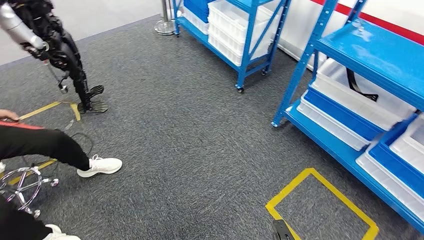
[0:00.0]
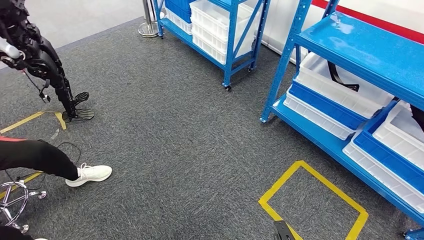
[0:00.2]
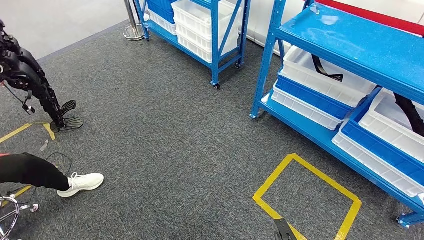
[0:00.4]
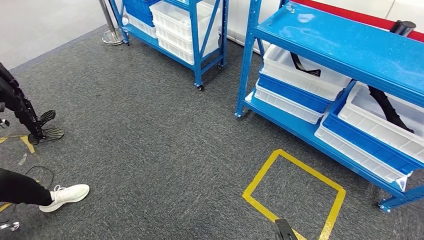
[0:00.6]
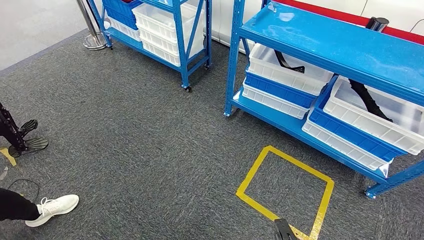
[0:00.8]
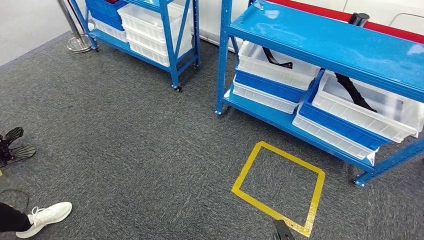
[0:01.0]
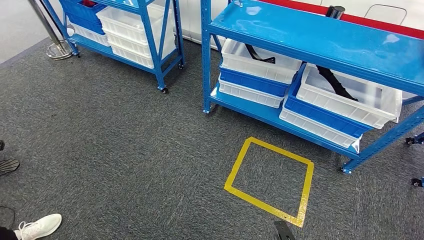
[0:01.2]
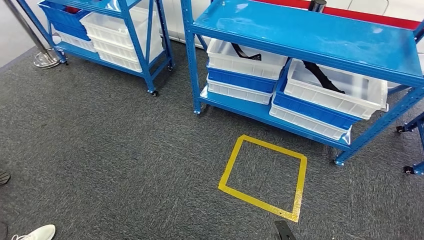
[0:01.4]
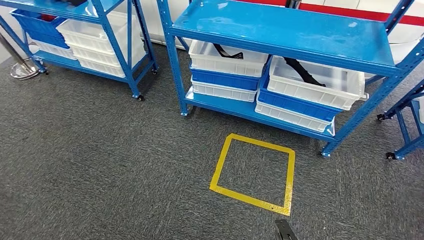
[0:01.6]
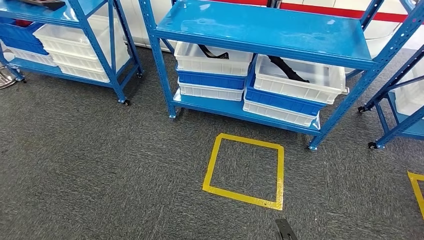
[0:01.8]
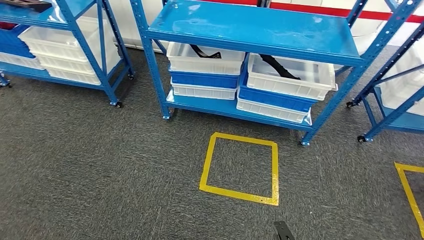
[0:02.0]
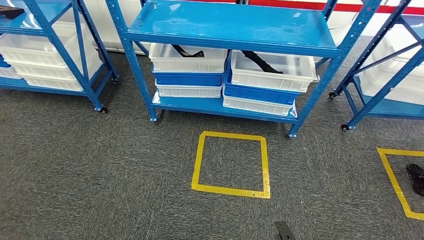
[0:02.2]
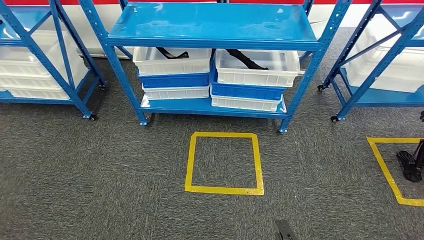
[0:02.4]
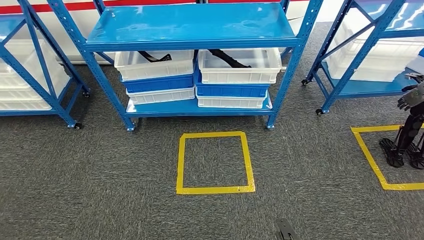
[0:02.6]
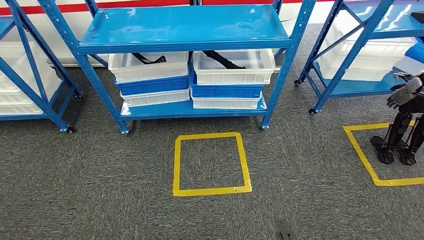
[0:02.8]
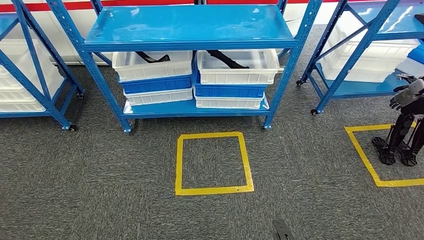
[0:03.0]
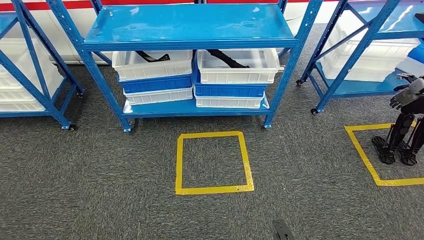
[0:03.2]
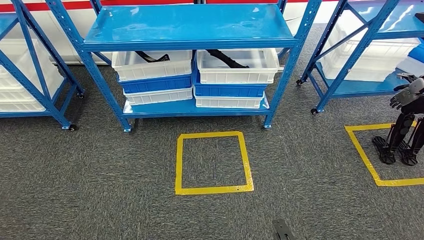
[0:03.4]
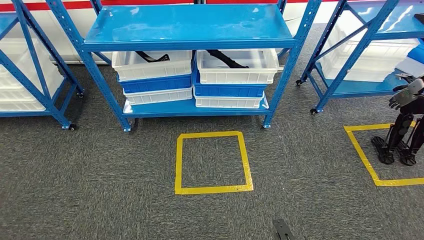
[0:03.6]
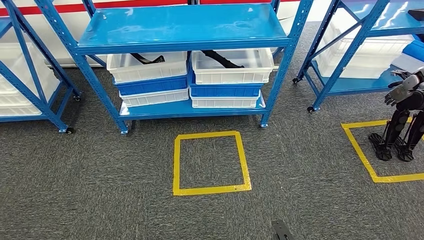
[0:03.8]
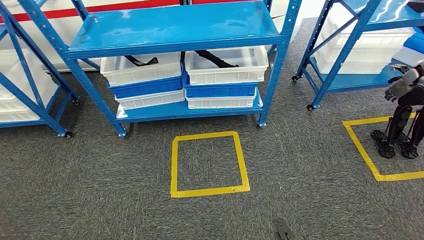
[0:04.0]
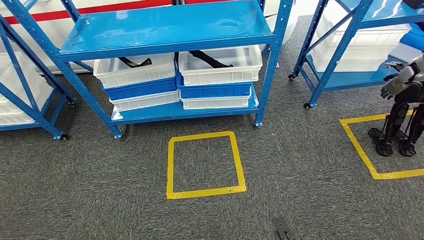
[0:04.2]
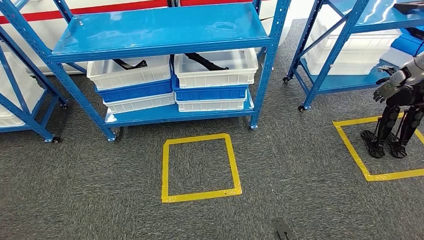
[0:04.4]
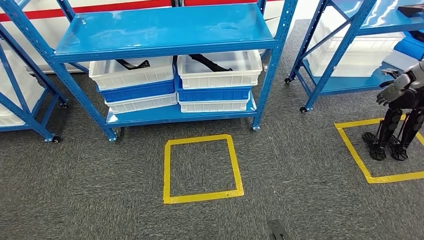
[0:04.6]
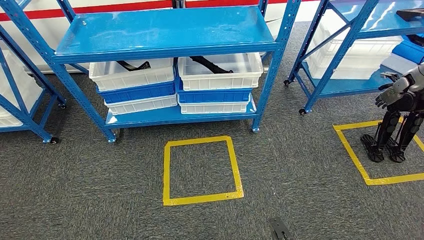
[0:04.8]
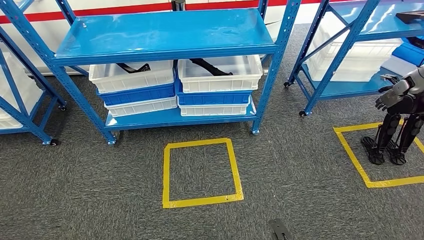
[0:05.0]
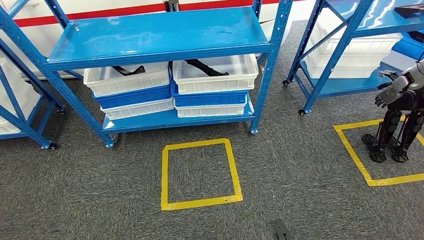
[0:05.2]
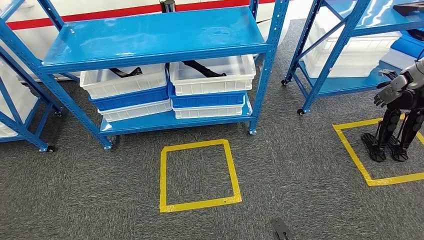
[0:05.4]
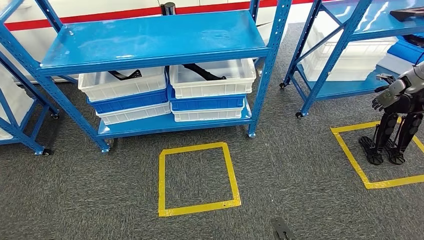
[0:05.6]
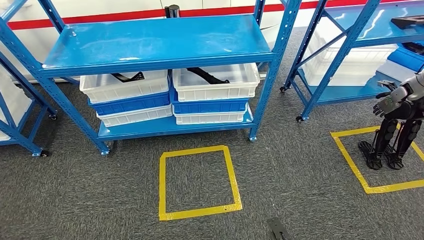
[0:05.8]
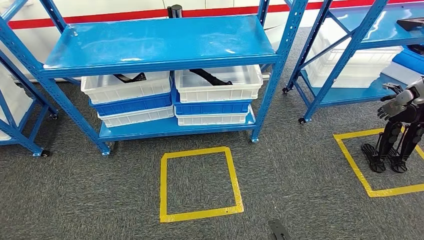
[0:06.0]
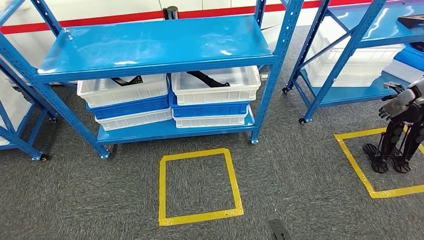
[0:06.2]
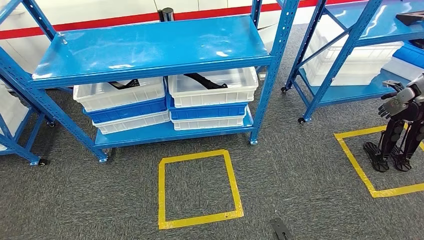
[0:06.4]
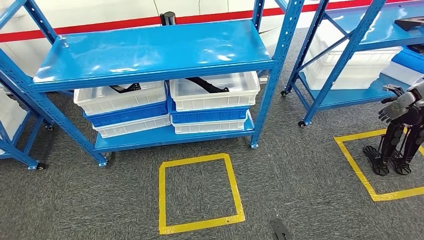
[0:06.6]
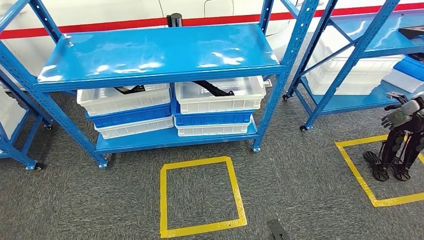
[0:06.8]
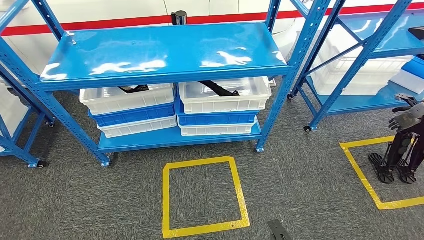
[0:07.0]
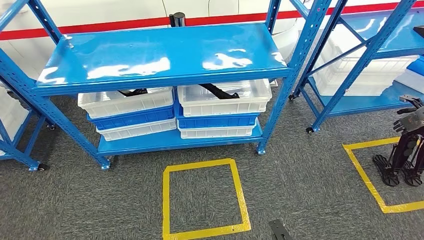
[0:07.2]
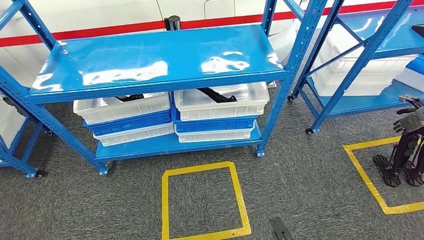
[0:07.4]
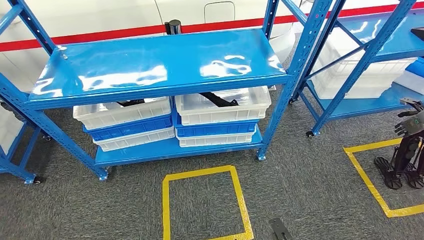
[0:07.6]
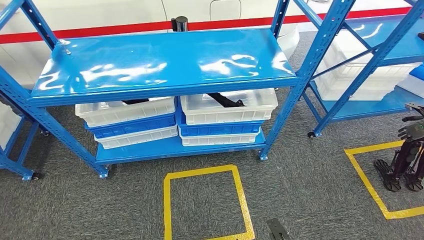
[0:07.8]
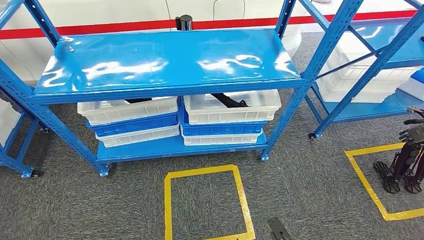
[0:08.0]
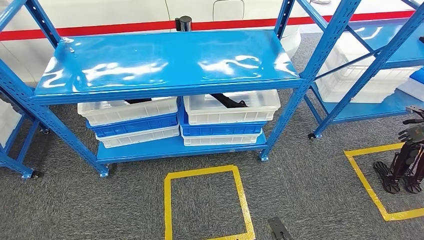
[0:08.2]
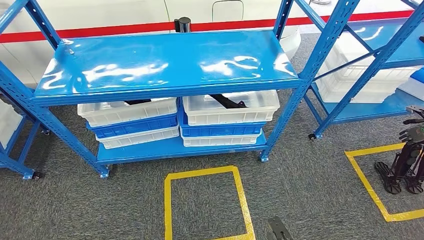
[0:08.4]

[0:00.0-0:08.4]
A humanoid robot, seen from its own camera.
Step, 0:00.0 to 0:08.4: Move to the initial position of the shelf.

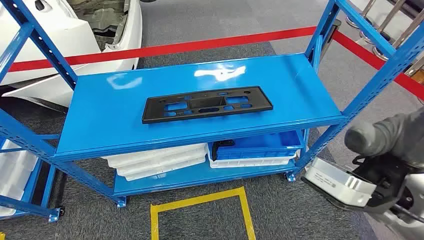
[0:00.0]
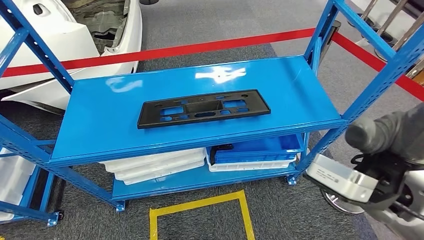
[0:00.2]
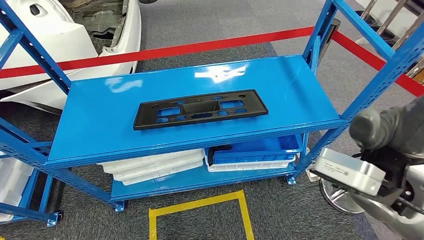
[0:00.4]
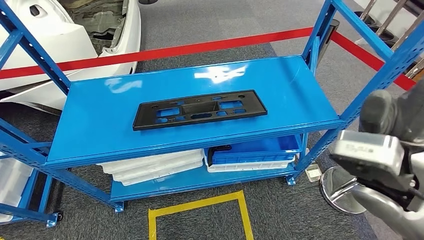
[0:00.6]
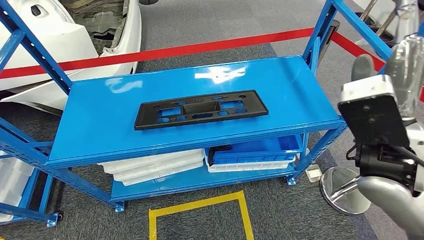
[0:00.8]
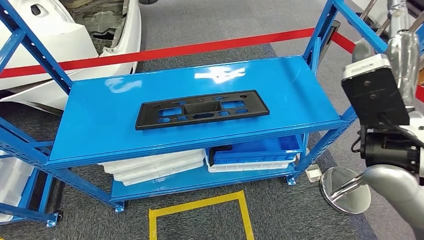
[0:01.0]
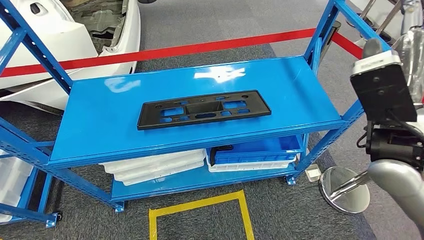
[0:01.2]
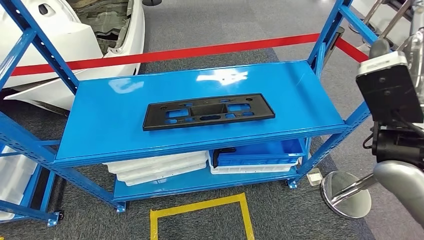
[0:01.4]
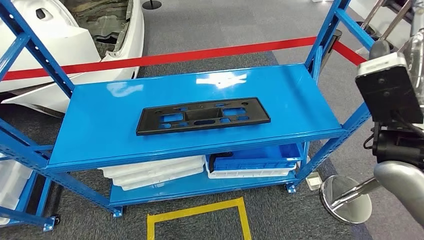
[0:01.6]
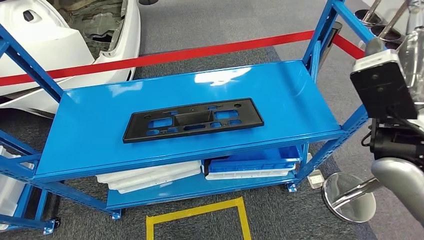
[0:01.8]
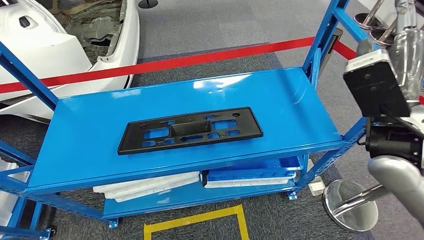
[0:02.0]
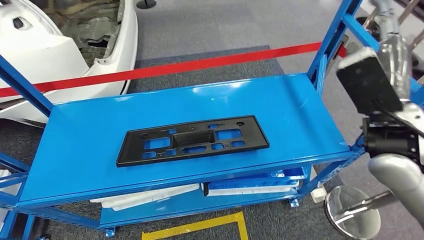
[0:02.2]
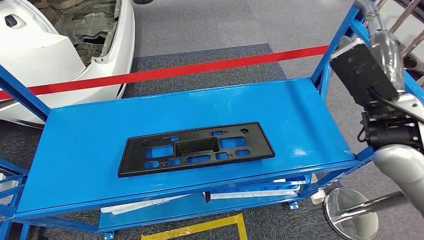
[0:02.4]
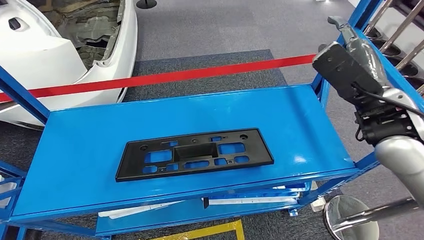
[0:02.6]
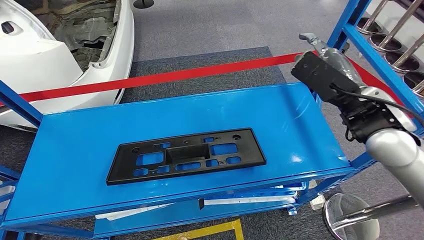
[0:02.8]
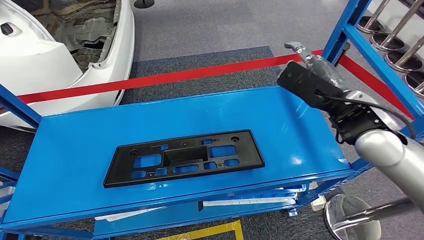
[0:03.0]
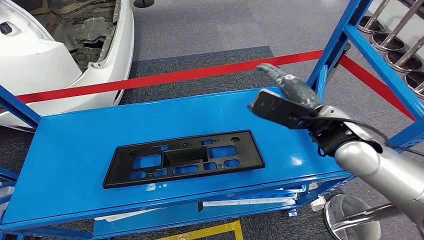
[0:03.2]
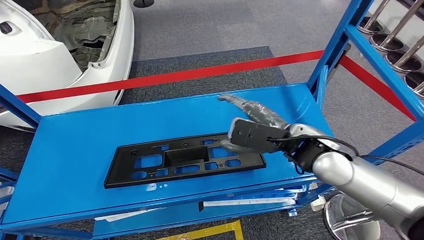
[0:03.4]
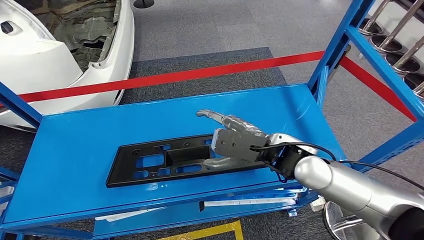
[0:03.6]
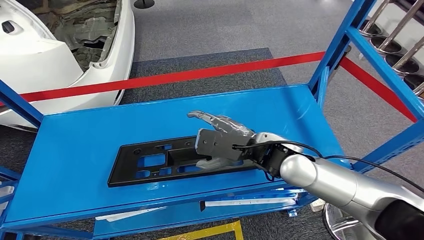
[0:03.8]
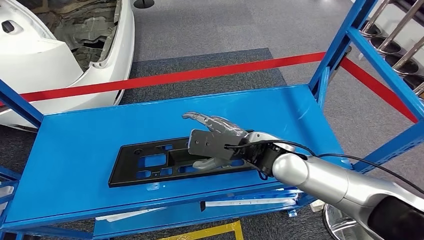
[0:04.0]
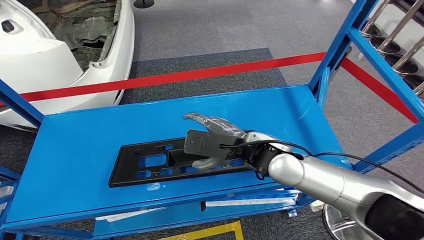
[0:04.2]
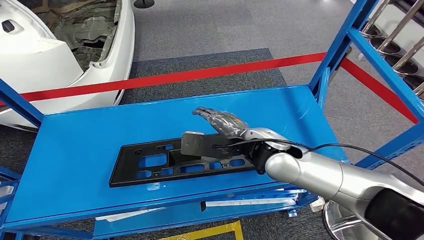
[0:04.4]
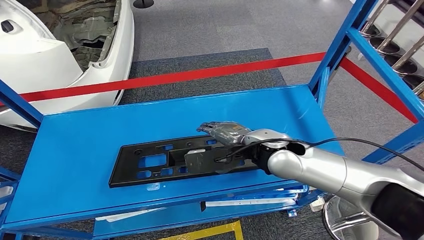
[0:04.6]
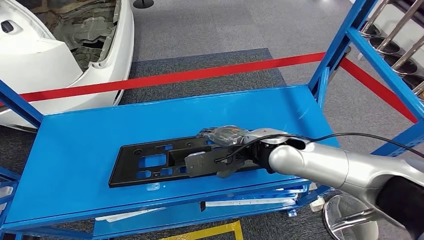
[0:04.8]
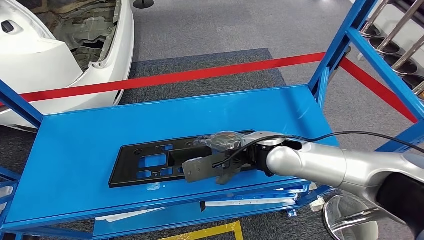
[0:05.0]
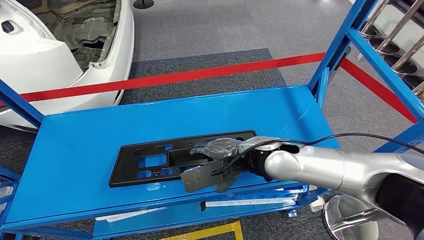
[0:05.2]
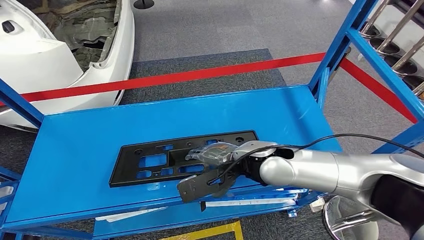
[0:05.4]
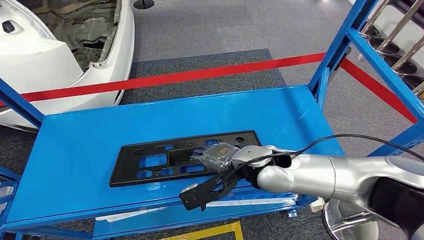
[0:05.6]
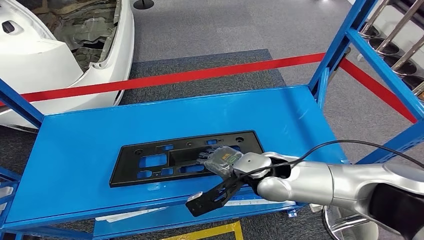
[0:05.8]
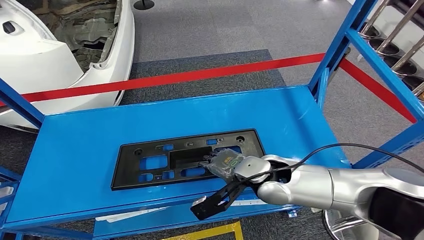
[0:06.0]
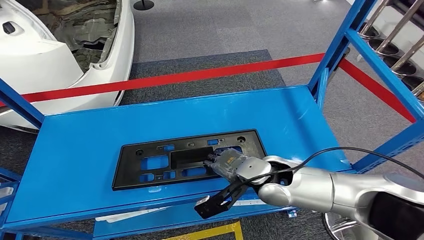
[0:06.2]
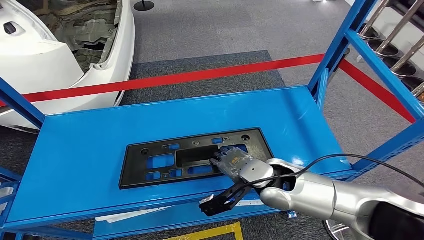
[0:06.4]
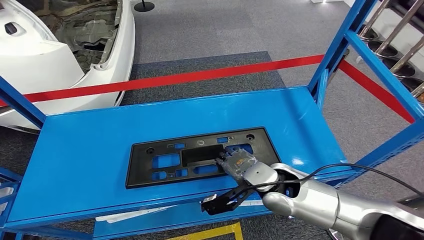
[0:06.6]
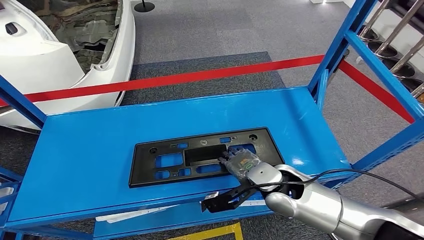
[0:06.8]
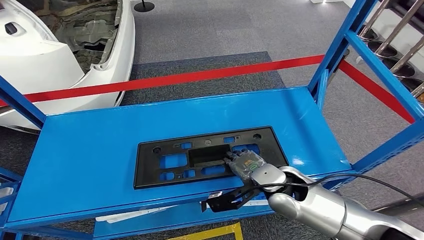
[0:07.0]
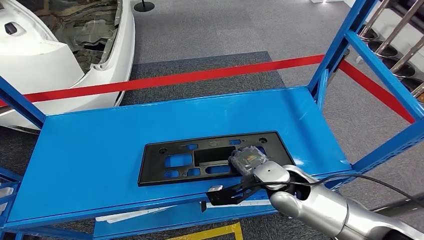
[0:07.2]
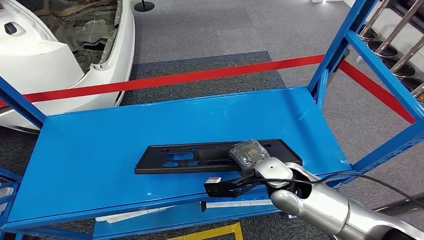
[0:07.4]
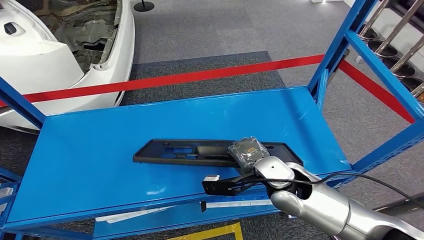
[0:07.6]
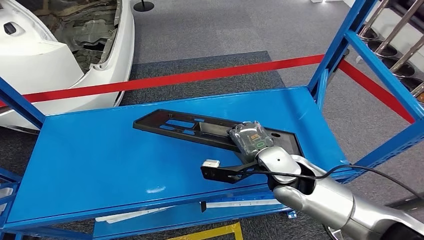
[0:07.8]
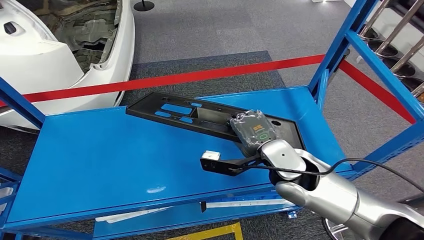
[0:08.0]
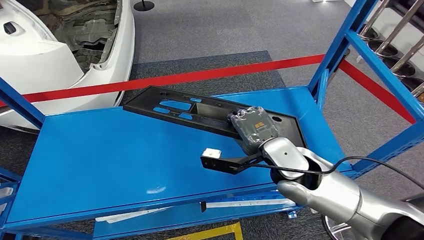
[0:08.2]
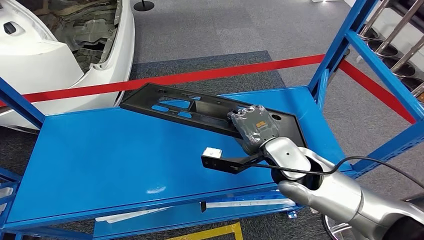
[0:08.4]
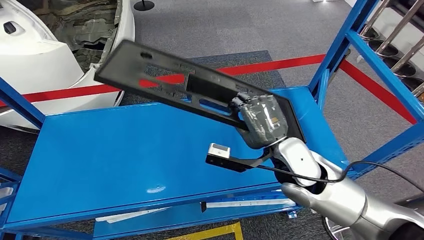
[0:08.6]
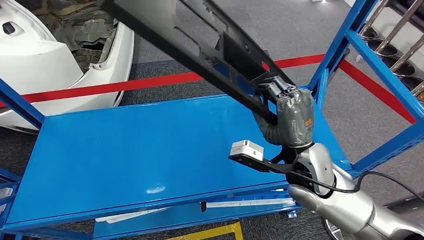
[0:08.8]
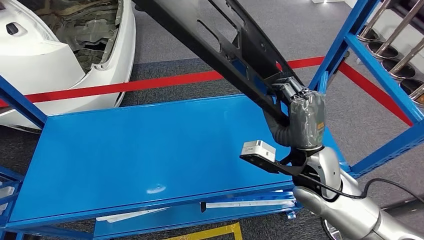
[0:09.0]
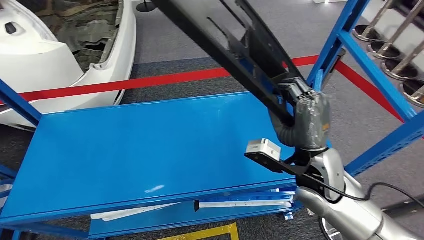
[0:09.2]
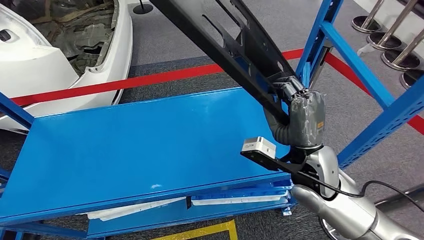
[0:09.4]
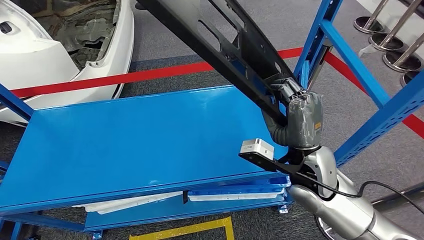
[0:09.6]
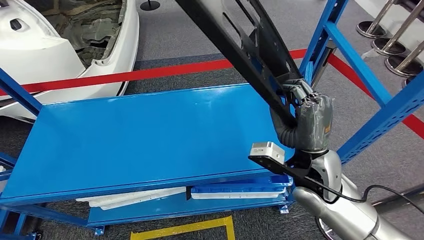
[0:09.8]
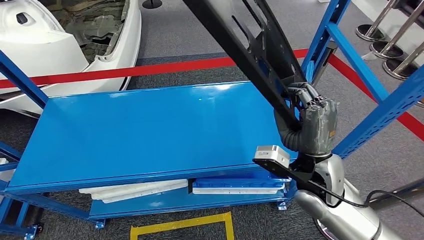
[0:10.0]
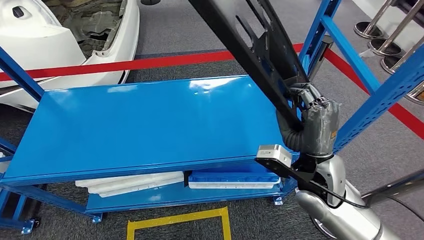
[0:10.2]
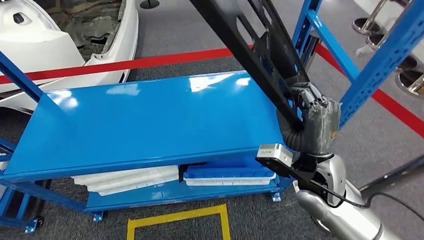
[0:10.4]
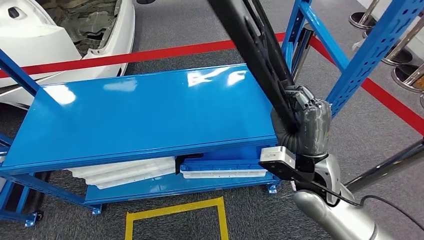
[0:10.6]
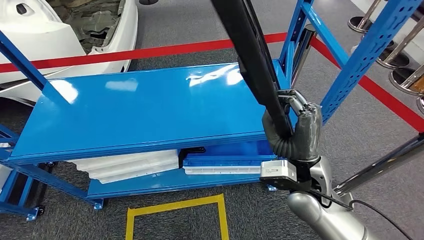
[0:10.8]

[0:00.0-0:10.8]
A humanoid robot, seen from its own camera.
0:04.6 to 0:06.2: The right hand goes roughly 5 cm downward.
